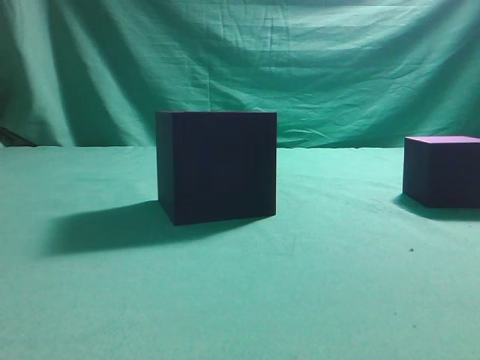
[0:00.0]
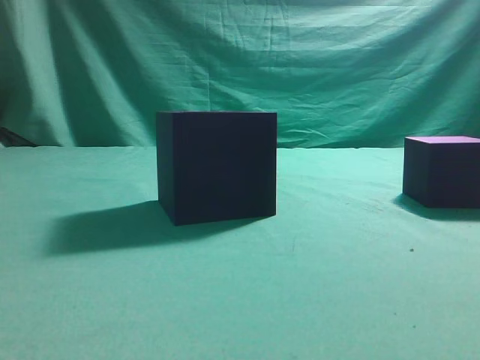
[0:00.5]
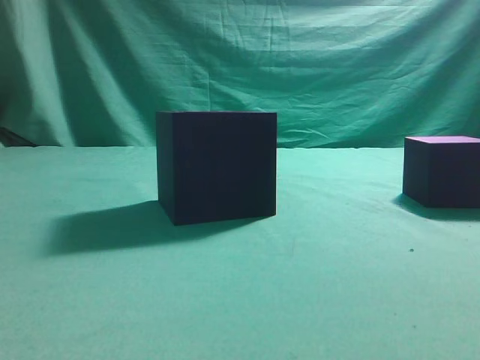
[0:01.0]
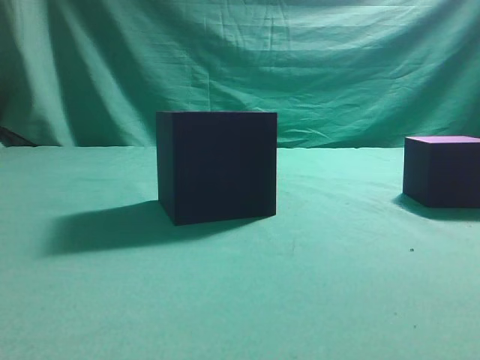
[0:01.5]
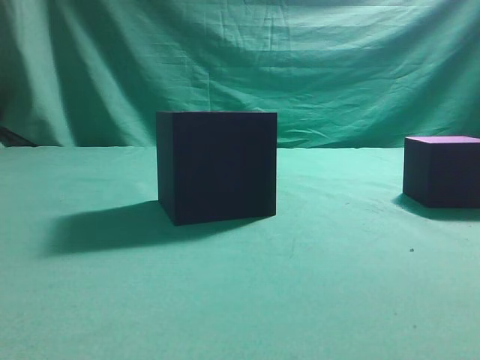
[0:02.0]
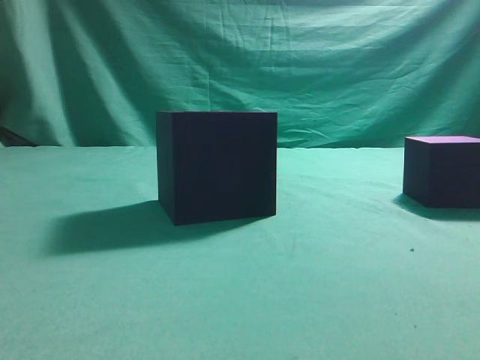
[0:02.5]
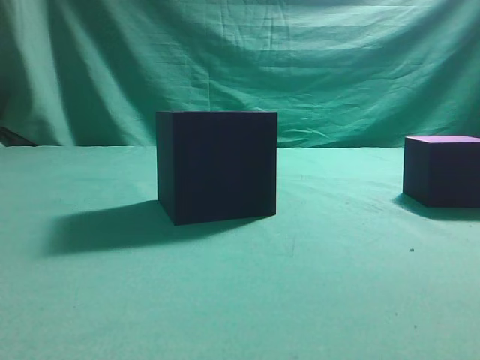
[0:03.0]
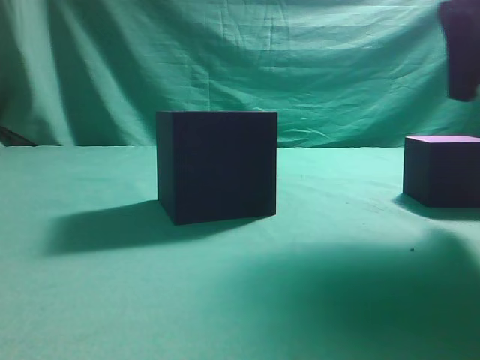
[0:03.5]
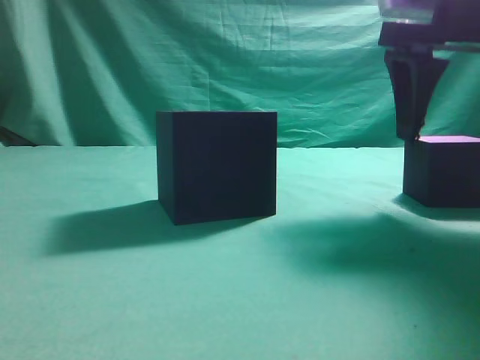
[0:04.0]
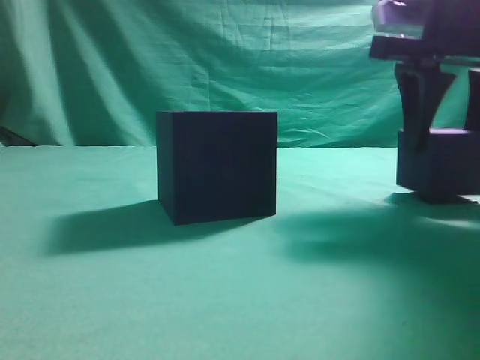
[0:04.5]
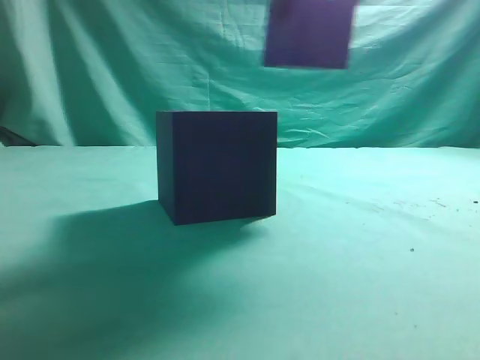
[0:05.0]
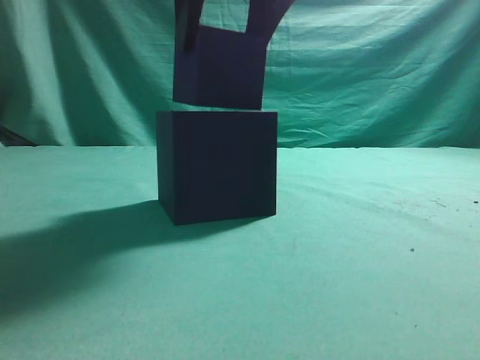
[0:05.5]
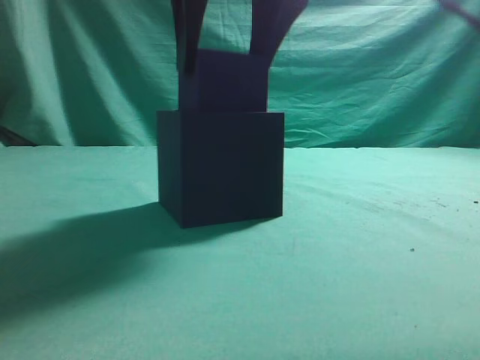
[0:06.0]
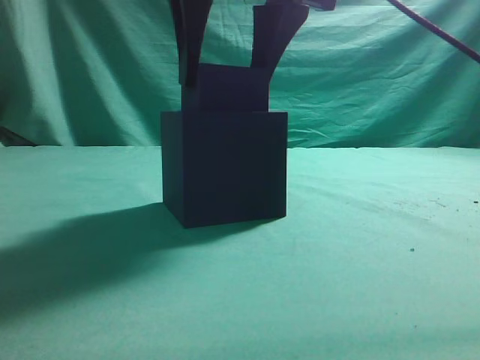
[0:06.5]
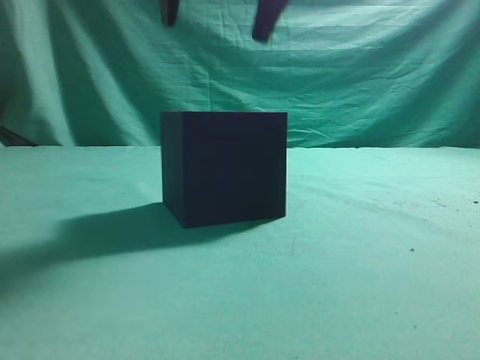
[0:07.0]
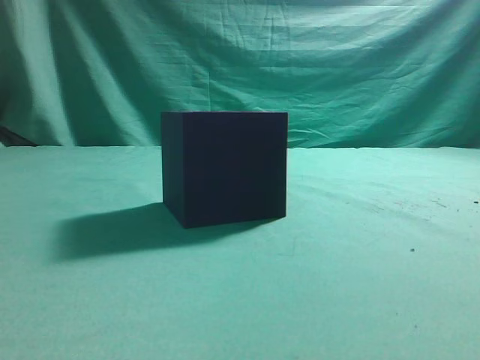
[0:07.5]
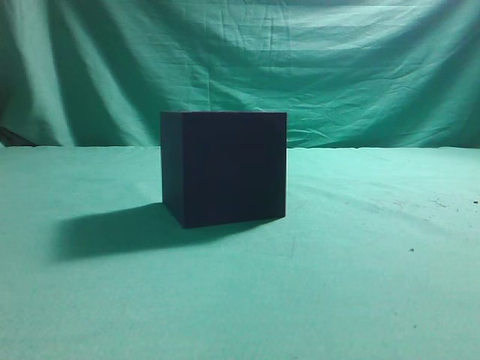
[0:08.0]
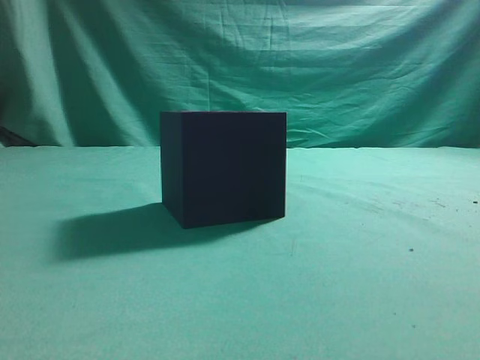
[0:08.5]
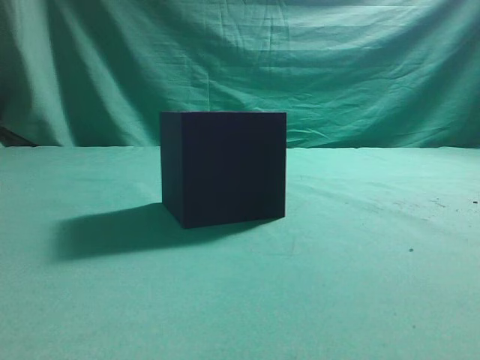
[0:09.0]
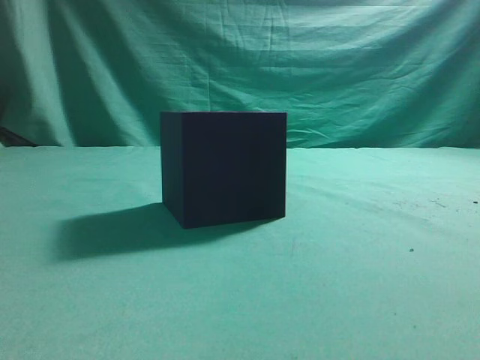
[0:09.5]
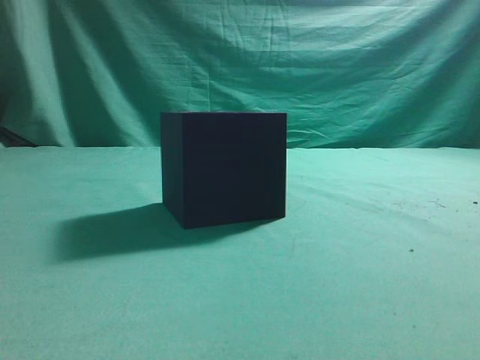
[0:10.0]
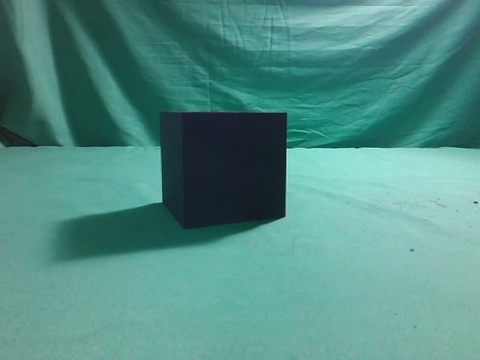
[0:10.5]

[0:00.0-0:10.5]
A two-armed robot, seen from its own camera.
Task of the whole recording: pick up the cube block and place it into the cube groove.
Step, 0:00.0 to 0:04.5: Grasp the cube.
Step, 0:05.0 to 0:06.5: Place cube into the cube-shaped recess.
0:02.0 to 0:04.0: The right gripper travels forward by some 25 cm, and opens up.
0:04.0 to 0:06.5: The right gripper shifts roughly 20 cm to the left.
0:06.5 to 0:08.5: The right gripper shifts roughly 35 cm backward, to the right and upward, and closes.
